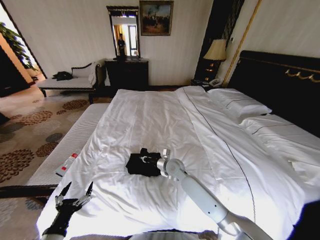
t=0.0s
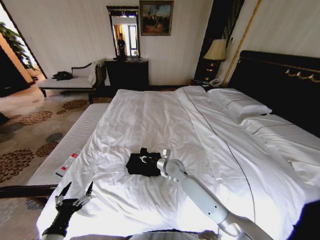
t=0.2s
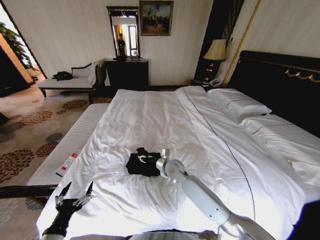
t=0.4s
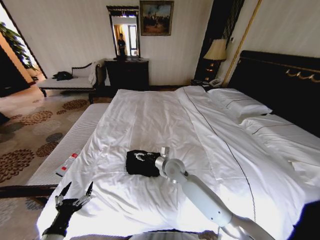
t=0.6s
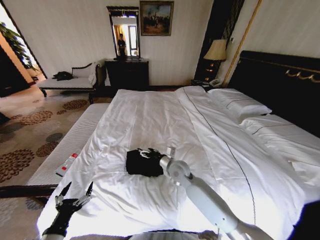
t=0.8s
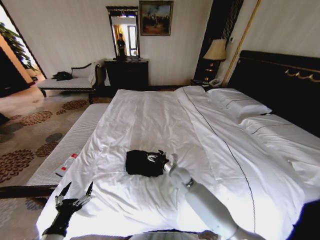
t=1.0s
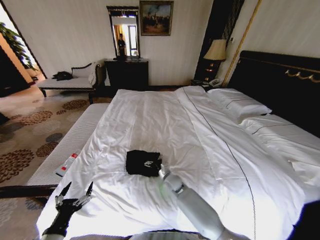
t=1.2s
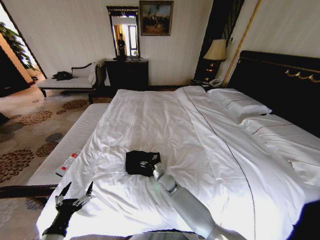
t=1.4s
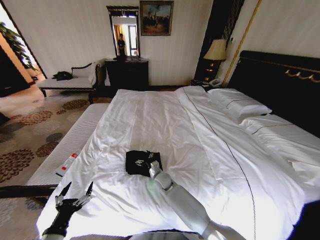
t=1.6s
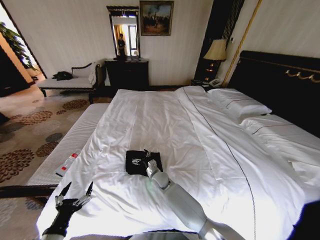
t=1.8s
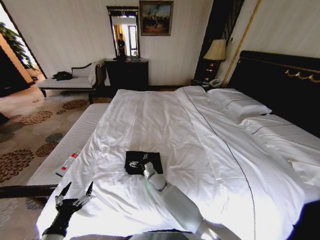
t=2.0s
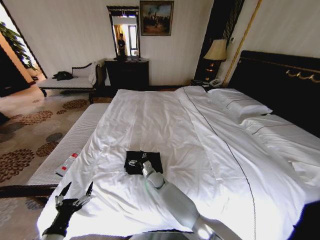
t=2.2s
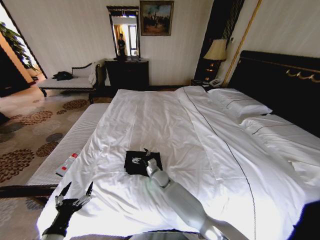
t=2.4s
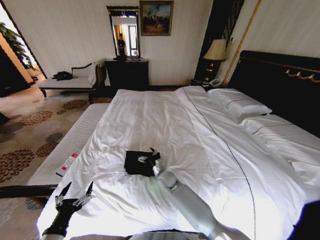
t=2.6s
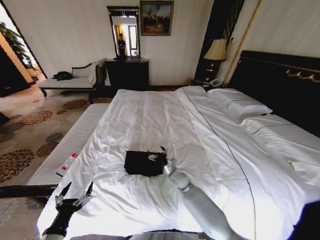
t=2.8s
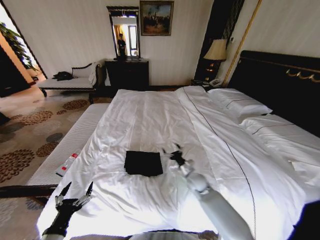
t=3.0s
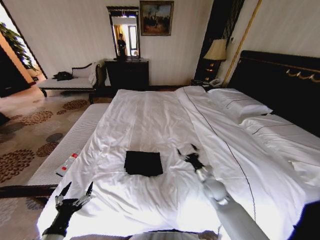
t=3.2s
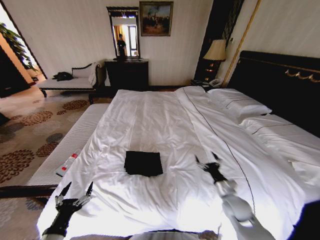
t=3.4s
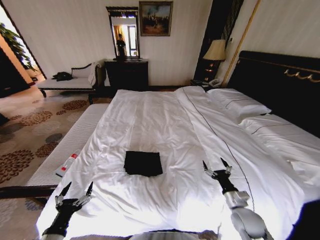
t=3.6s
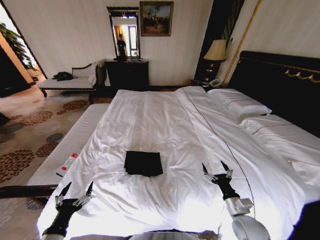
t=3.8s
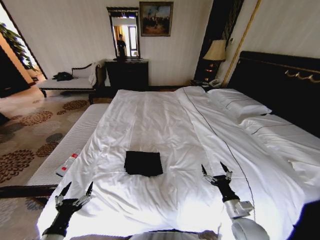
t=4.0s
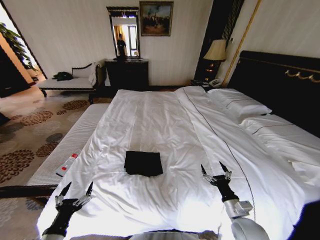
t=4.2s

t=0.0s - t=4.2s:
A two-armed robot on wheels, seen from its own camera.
Task of the whole recording: Fold the clothes on the bed.
t=0.0s - t=1.4s: The right gripper is displaced downward by about 10 cm, and opens.
t=1.4s - t=2.8s: The right gripper ends up approximately 5 cm from where it was.
t=2.8s - t=4.2s: The right gripper travels to the right and backward by roughly 30 cm.

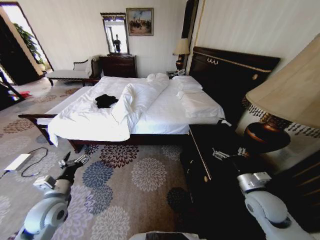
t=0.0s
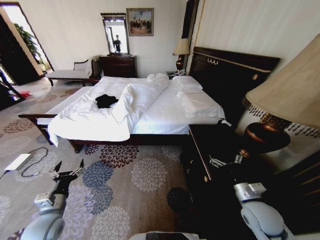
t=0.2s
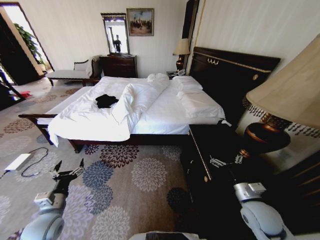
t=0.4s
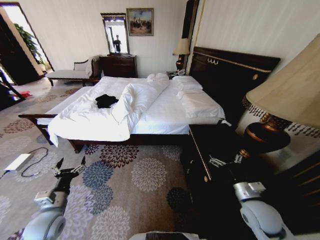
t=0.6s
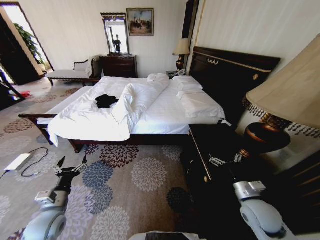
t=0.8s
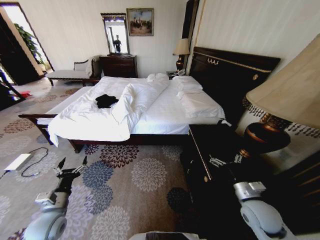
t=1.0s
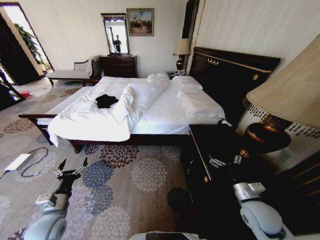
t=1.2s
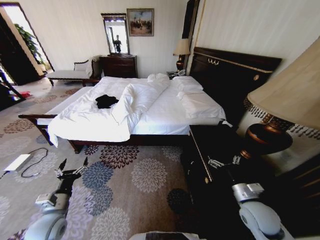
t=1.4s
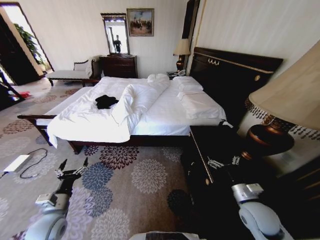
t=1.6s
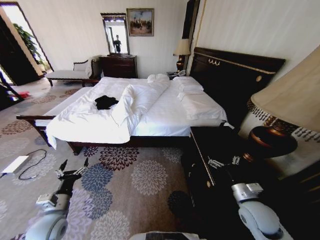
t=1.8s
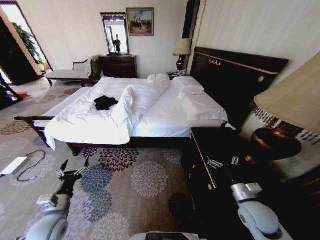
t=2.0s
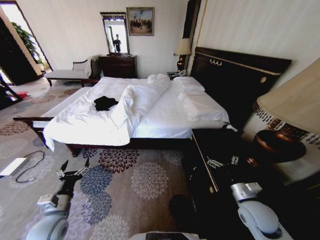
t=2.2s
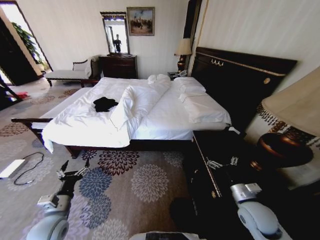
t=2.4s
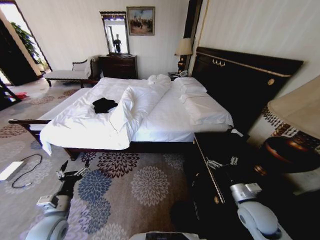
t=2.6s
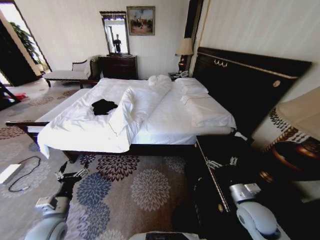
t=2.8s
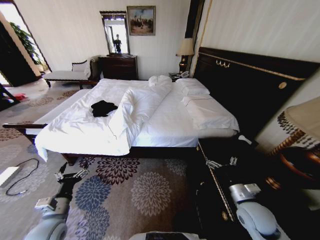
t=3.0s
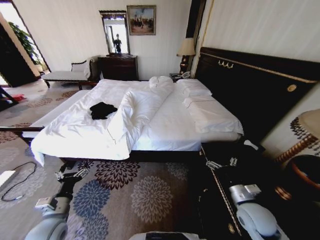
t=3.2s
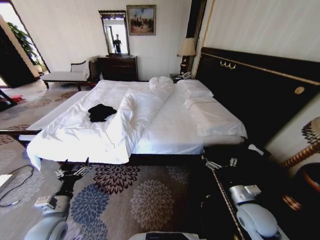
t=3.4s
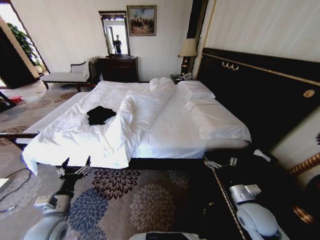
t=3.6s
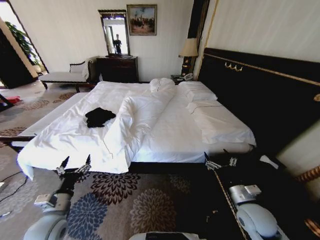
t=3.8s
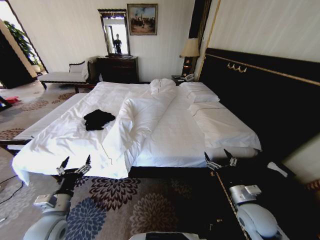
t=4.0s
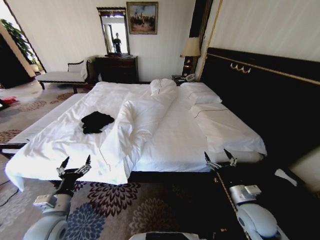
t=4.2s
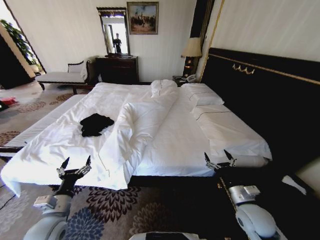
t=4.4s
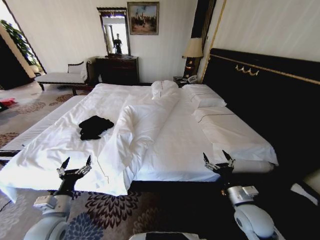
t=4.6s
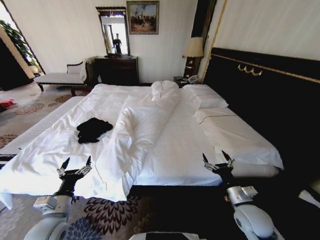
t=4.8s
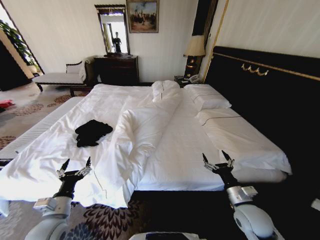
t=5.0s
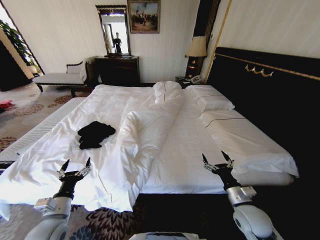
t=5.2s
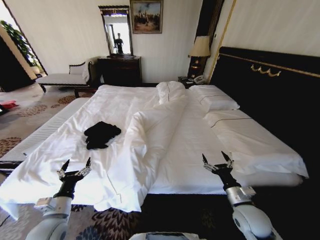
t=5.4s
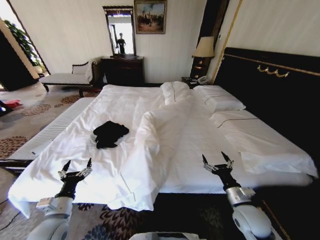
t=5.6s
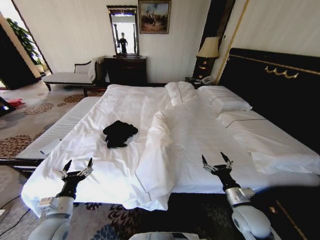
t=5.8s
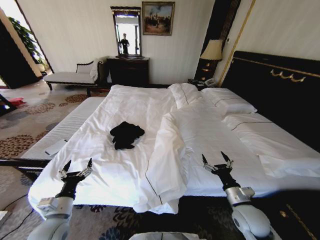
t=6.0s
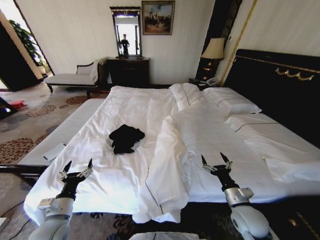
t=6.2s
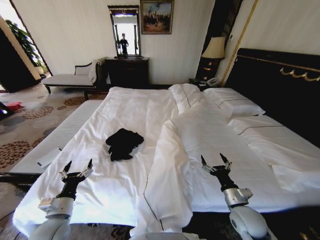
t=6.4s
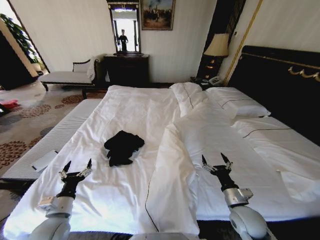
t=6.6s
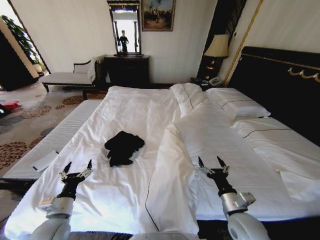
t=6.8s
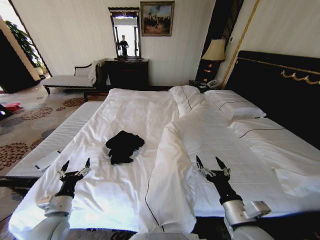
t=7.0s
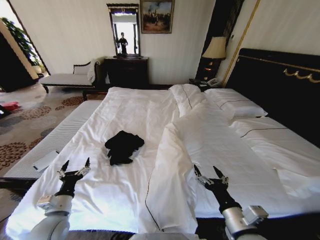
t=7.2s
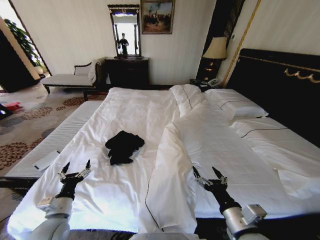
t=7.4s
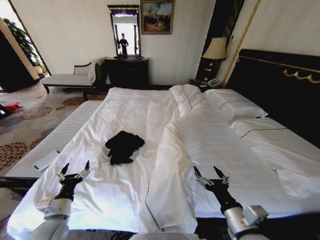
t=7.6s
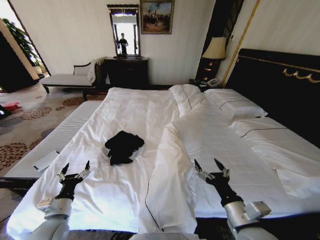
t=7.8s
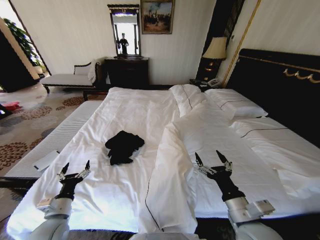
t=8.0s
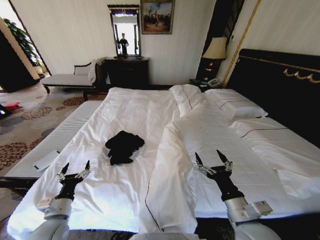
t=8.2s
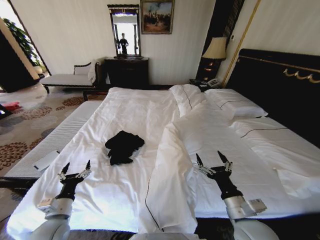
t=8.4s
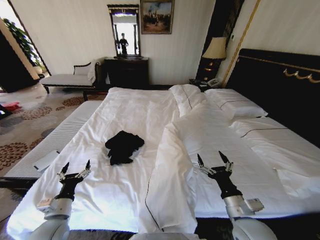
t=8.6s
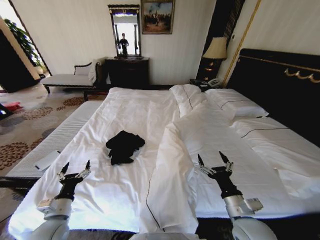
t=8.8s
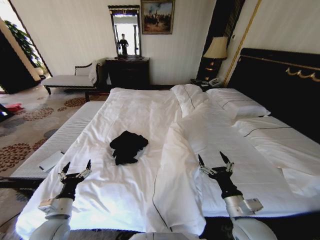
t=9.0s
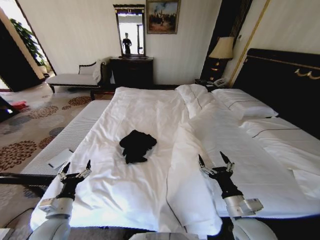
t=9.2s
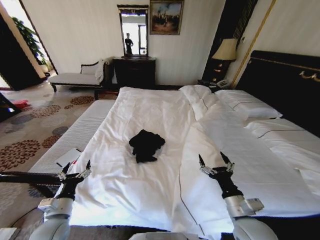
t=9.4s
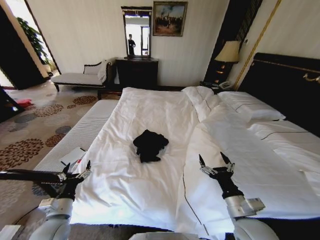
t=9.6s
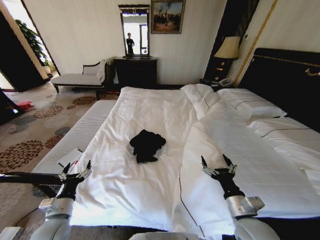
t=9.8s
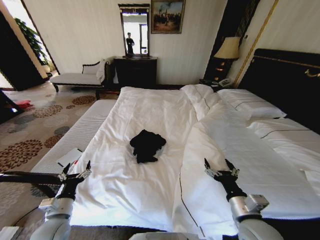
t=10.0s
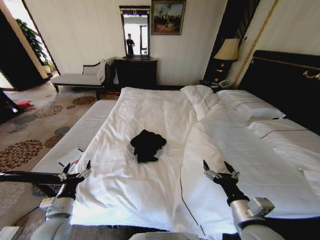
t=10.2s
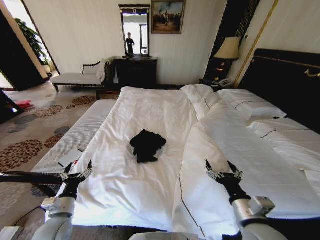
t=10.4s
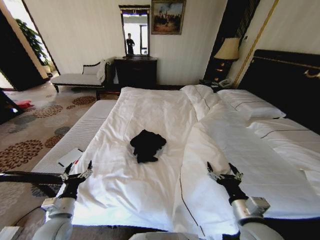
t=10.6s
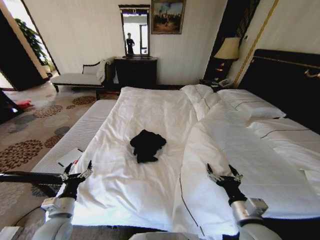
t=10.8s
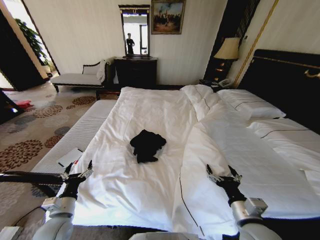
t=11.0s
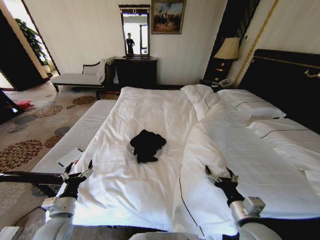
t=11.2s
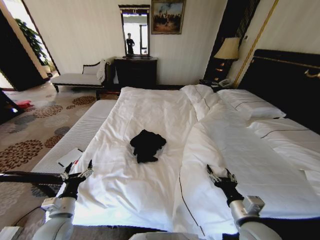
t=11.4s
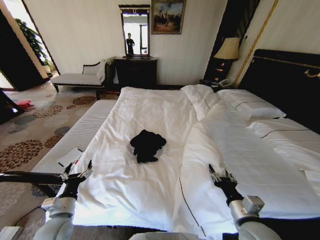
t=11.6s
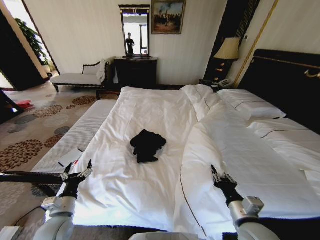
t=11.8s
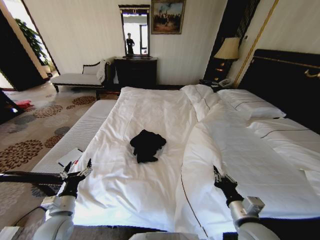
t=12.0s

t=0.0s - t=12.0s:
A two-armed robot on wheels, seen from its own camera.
Task of the whole recording: Fold the clothes on the bed.
t=6.0s - t=7.6s: The right gripper moves backward, upward and to the left, some 15 cm.
t=7.6s - t=9.0s: The right gripper changes place by approximately 5 cm.
t=10.4s - t=12.0s: The right gripper closes its fingers.

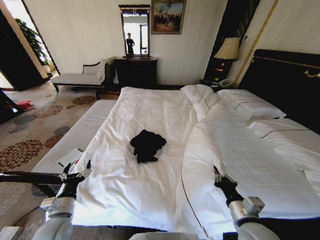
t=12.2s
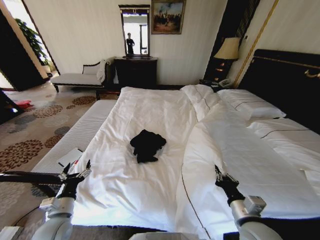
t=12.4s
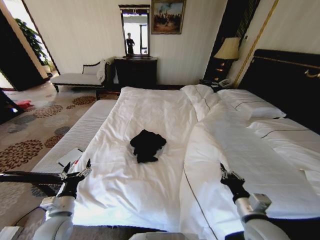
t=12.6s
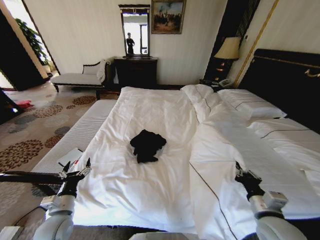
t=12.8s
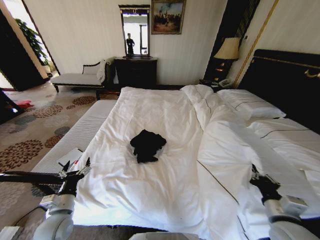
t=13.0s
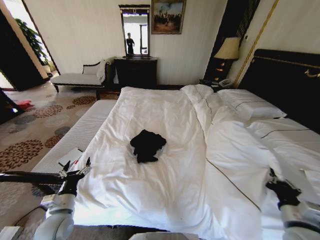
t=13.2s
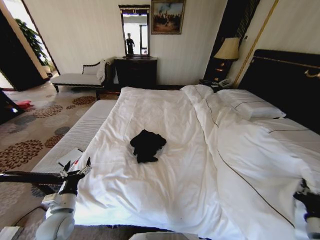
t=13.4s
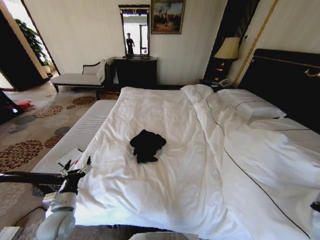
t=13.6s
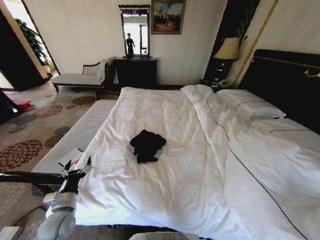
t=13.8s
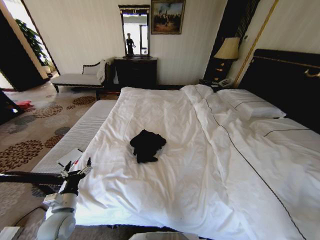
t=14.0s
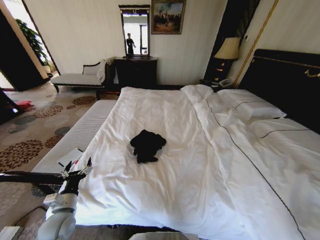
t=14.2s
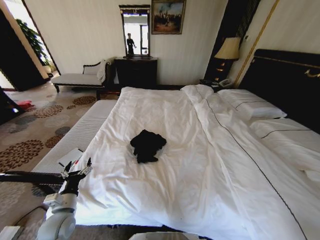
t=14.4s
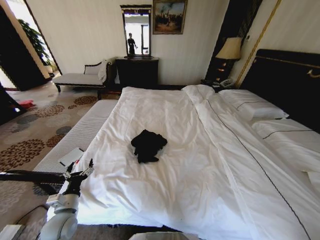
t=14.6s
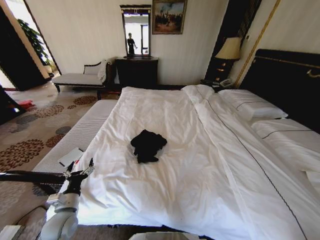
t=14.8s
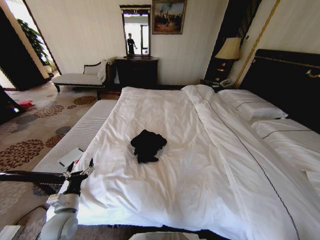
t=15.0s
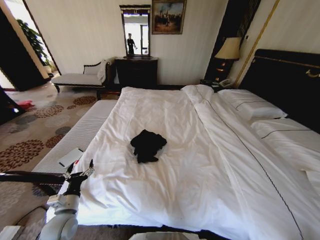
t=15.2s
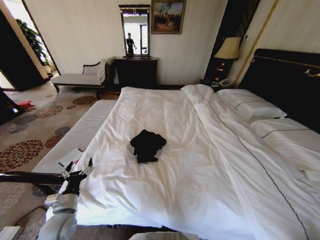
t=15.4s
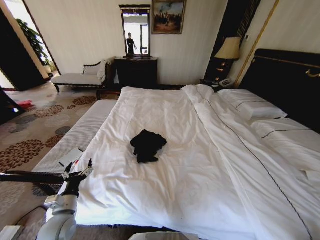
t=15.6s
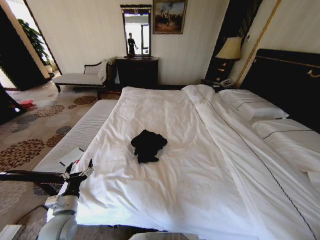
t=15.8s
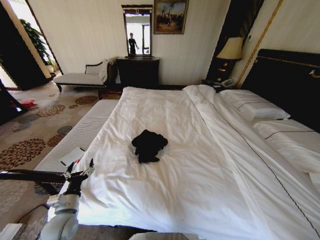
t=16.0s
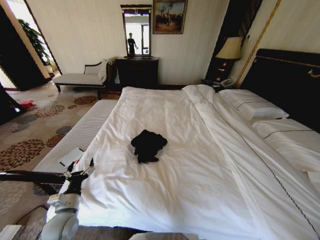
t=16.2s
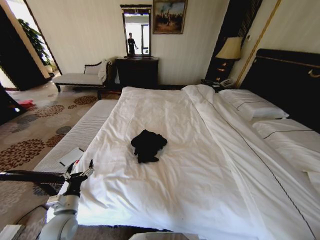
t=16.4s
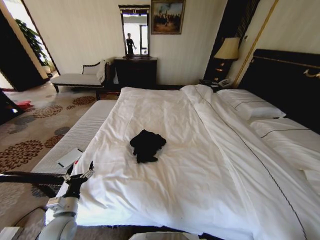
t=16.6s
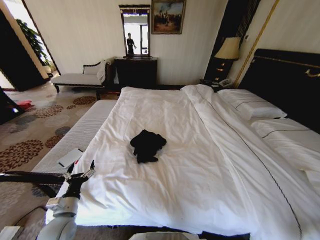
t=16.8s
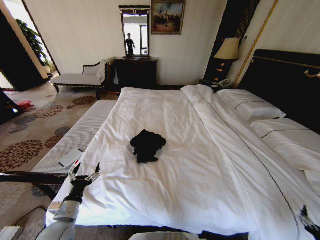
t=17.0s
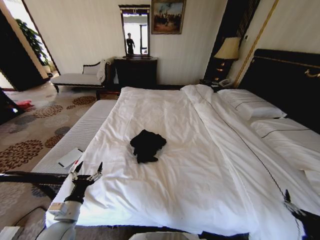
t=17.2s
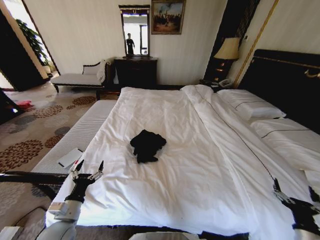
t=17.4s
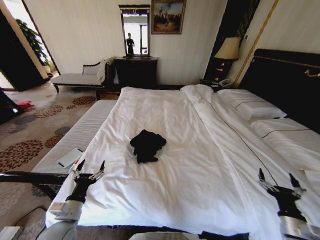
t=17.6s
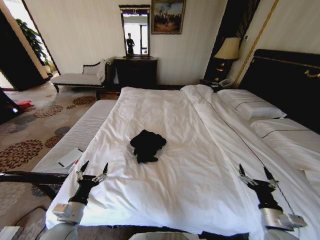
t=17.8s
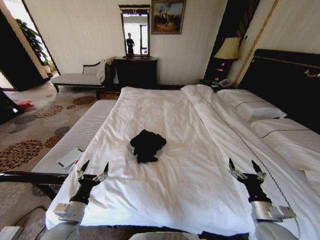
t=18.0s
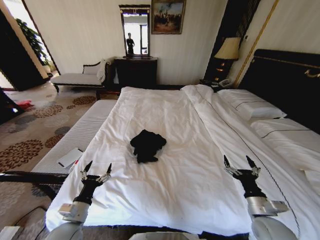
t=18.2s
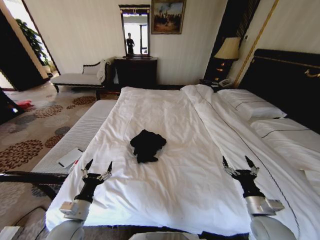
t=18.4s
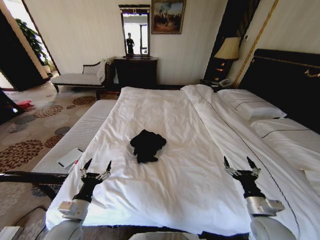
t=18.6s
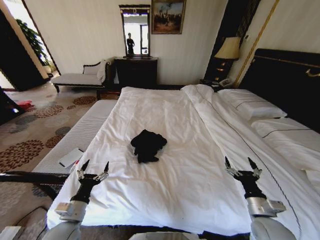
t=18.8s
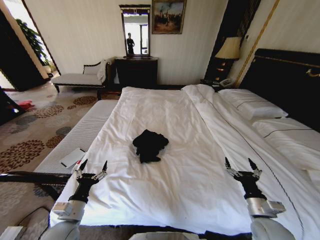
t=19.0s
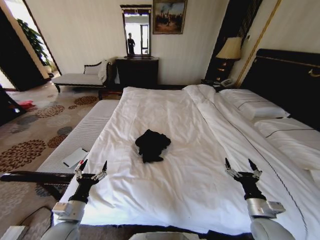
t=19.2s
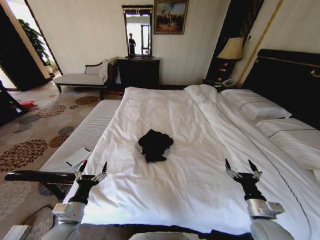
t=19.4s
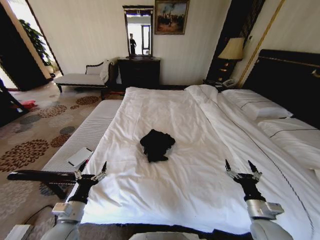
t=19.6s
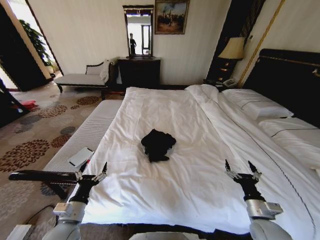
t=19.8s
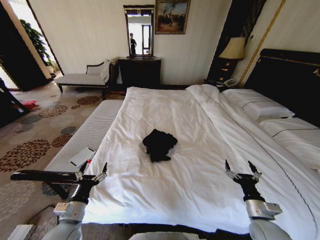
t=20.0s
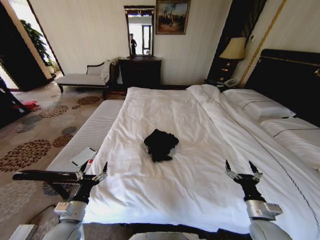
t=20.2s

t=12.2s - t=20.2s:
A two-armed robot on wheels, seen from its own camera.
Task of the whole recording: Fold the clothes on the bed.
t=12.2s - t=13.8s: The right gripper is displaced to the right by approximately 20 cm.
t=13.8s - t=15.4s: The right gripper heads downward and to the right, covering roughly 25 cm.
t=15.4s - t=17.0s: The right gripper travels to the left and upward by some 10 cm, and opens up.
t=17.0s - t=18.6s: The right gripper moves to the left, forward and upward, approximately 25 cm.
